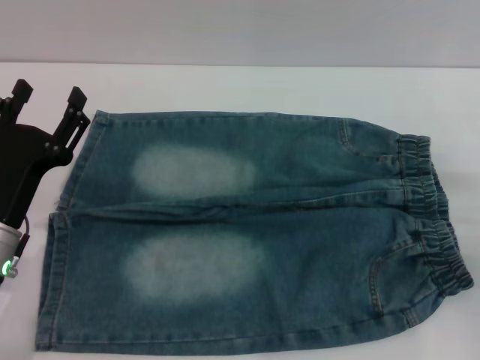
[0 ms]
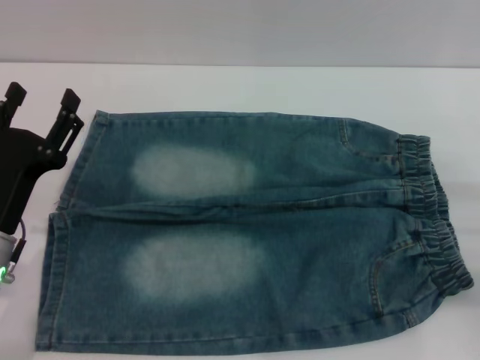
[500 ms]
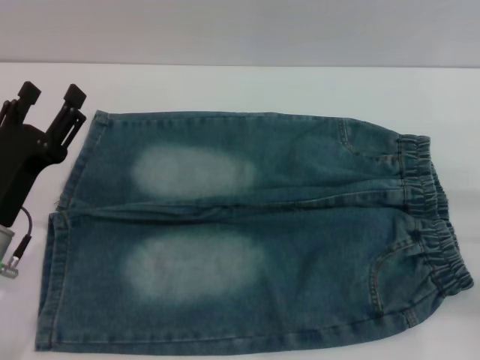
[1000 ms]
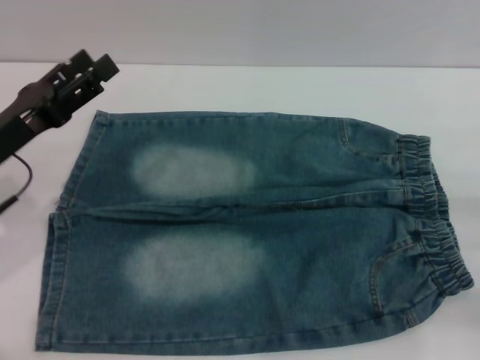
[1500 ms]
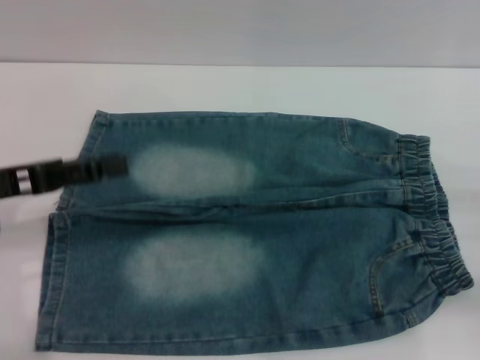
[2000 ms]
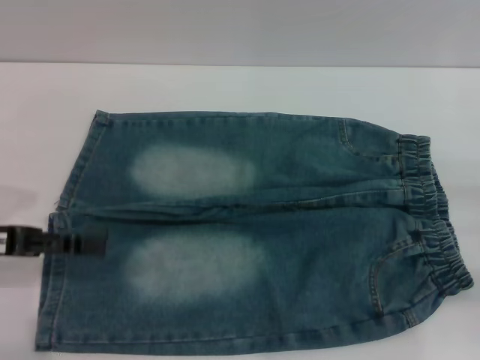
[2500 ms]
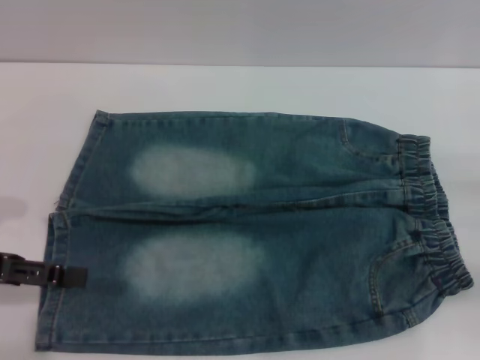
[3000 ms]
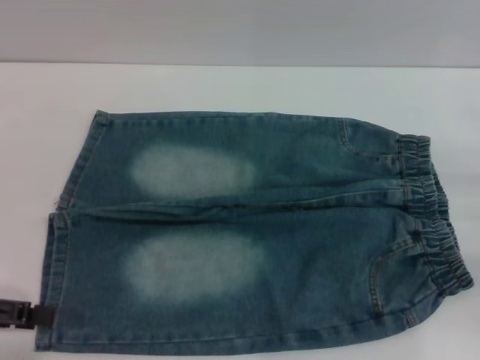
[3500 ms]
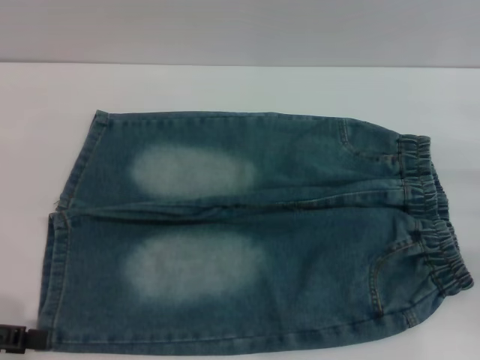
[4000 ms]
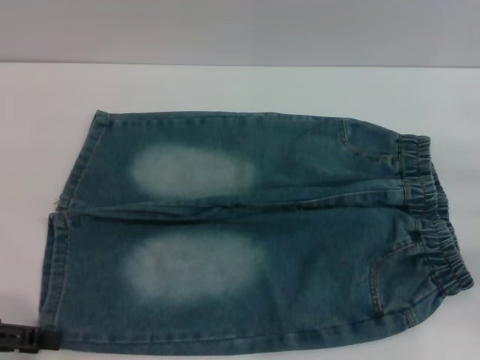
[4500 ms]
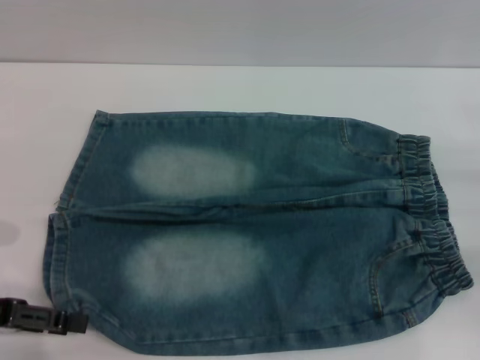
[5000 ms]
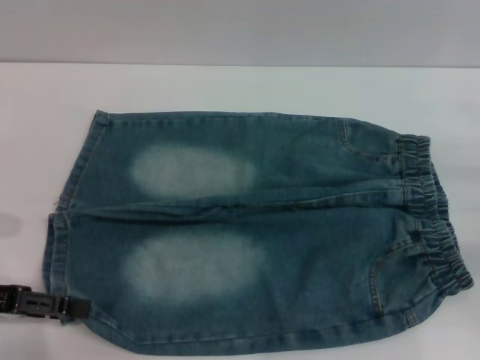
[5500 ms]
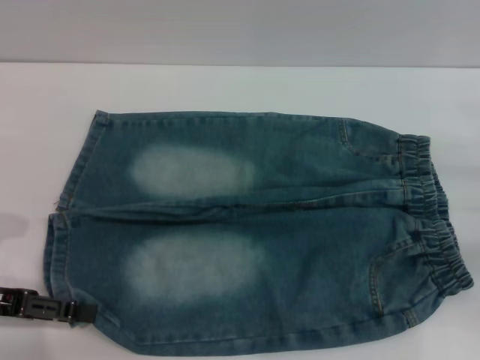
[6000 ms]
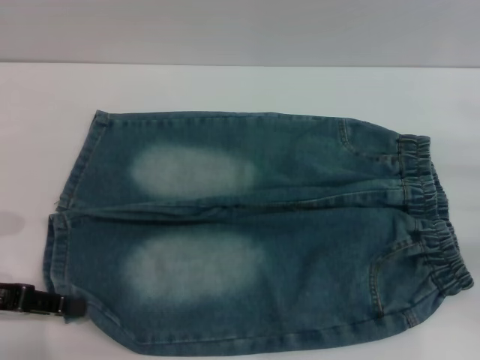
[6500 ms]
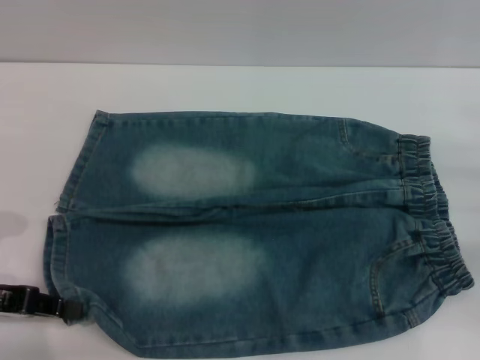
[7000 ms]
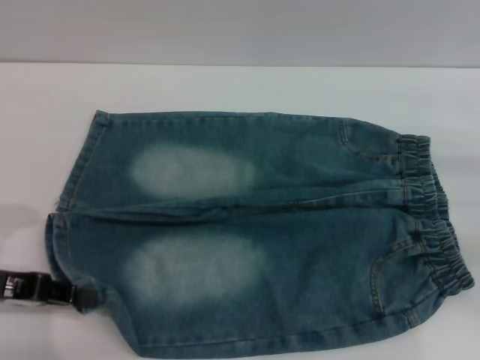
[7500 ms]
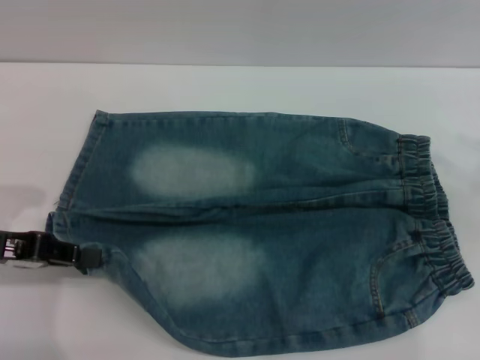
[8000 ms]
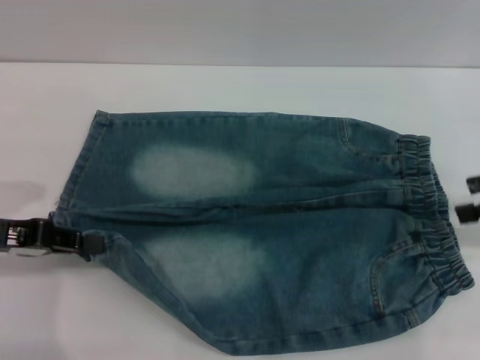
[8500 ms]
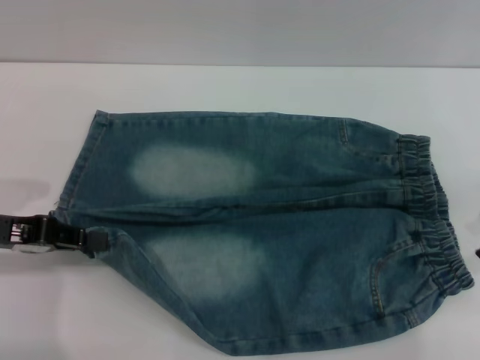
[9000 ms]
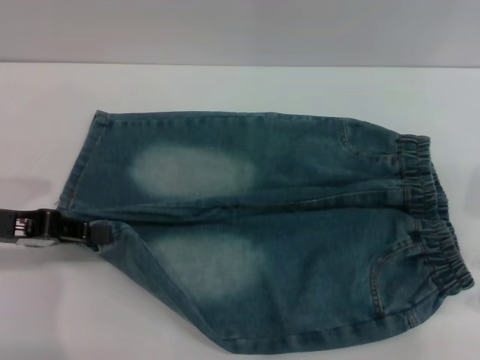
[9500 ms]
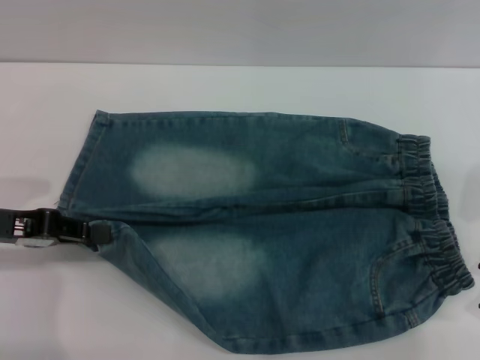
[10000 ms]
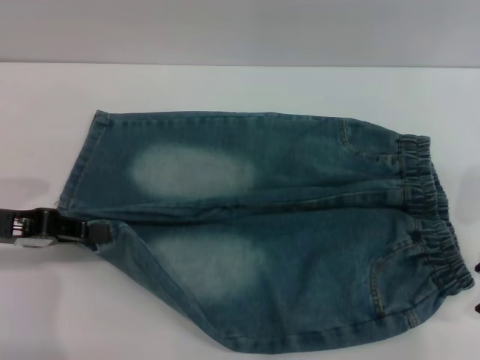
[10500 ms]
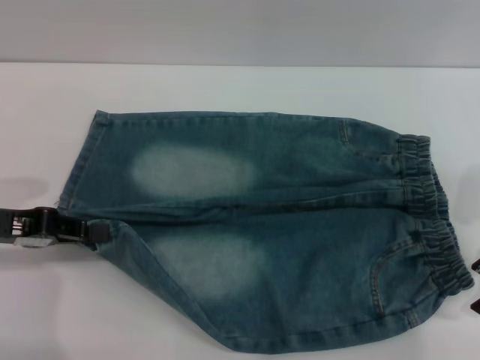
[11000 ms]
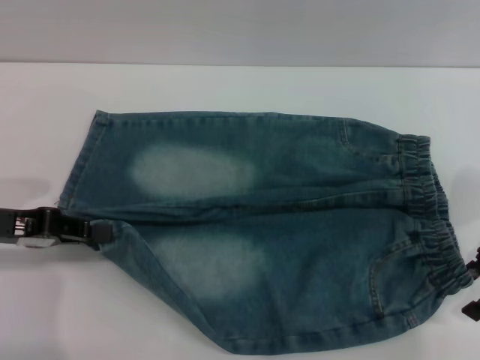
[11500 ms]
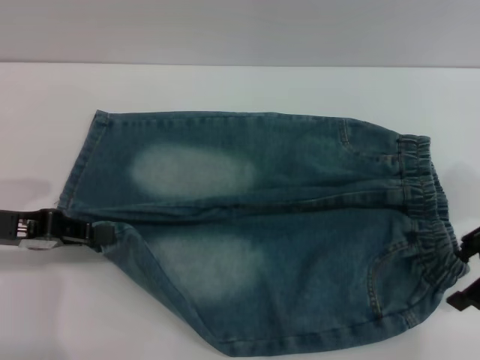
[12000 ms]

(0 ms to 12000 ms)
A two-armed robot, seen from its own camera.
0 ms - 2000 ms: The left gripper is displaced upward and to the left by about 10 cm.
2000 ms - 4000 ms: The left gripper shifts about 10 cm backward and to the left.
4000 ms - 6000 ms: There are only small adjustments of the grippers.
6000 ms - 8000 ms: The right gripper heads upward, covering approximately 10 cm; the left gripper closes its fingers.
8000 ms - 10000 ms: The right gripper shifts some 5 cm to the left.
10000 ms - 12000 ms: The grippers stay close to where they were, moving slightly.

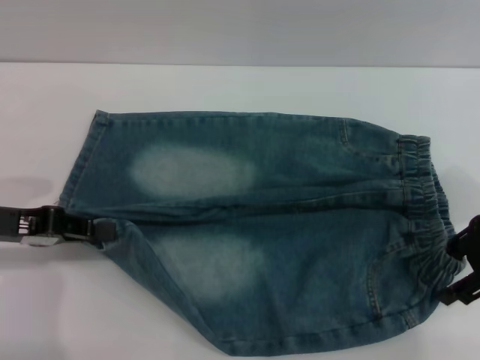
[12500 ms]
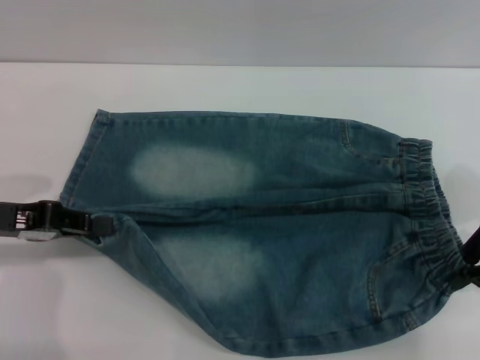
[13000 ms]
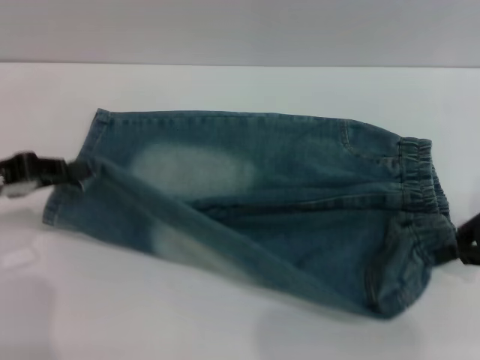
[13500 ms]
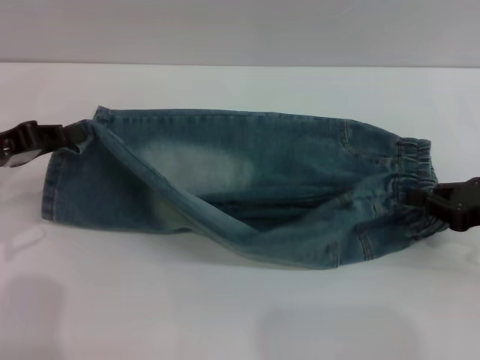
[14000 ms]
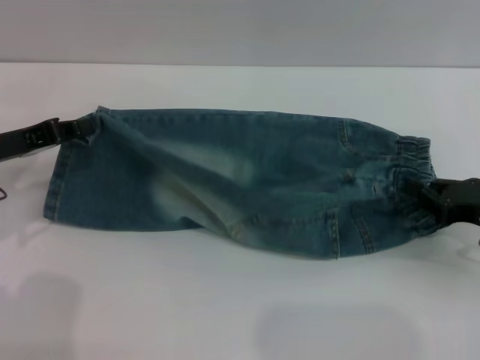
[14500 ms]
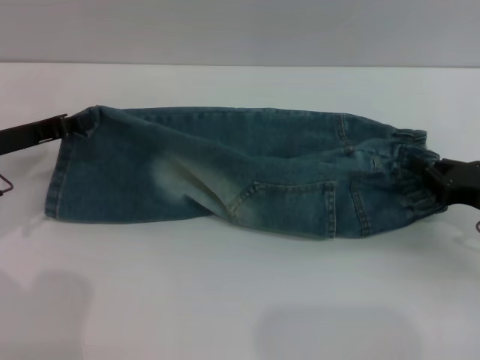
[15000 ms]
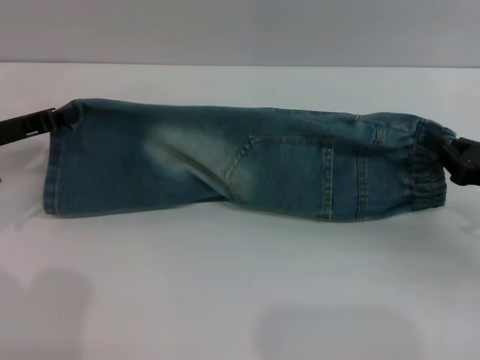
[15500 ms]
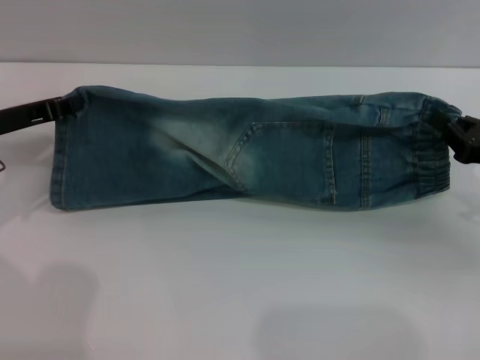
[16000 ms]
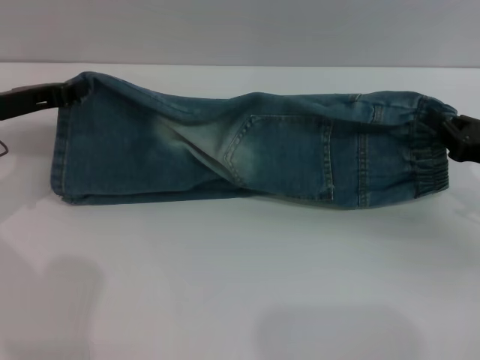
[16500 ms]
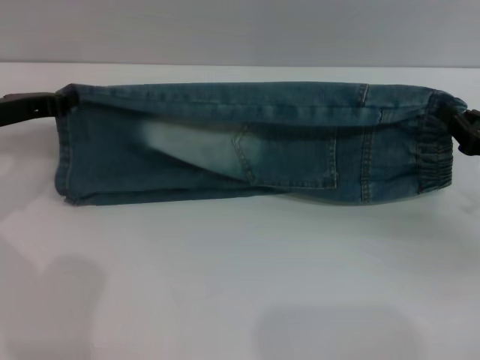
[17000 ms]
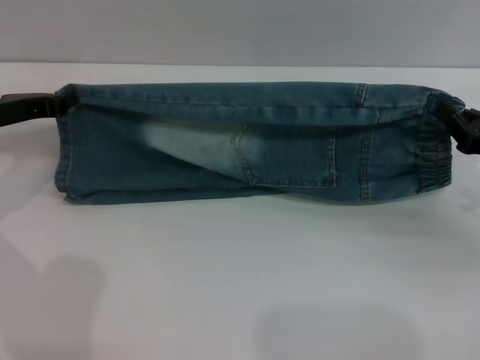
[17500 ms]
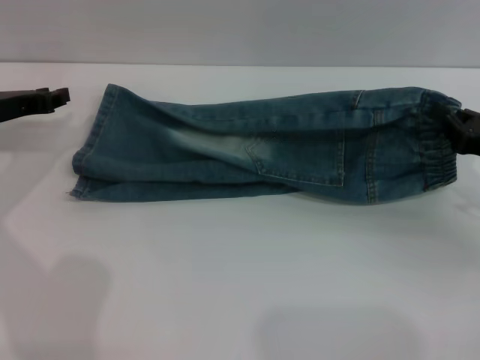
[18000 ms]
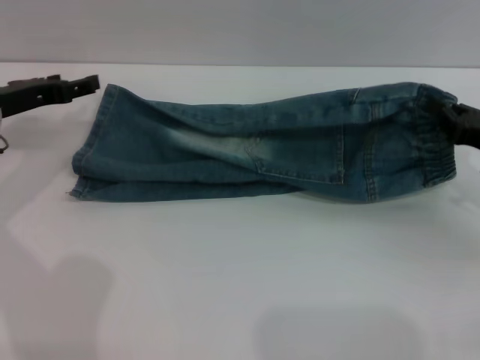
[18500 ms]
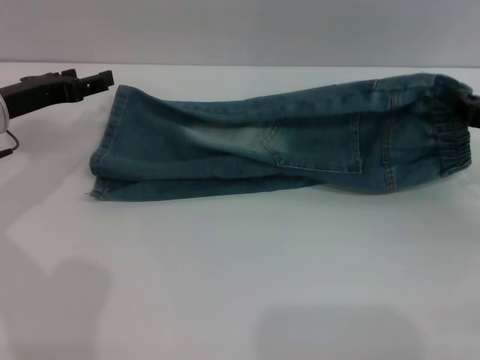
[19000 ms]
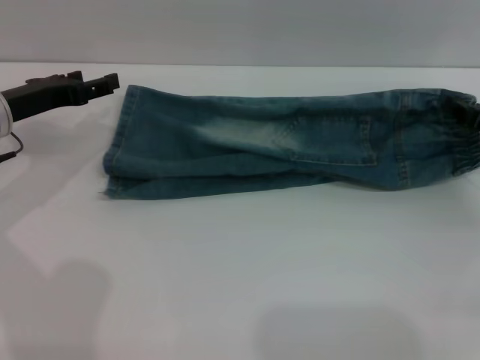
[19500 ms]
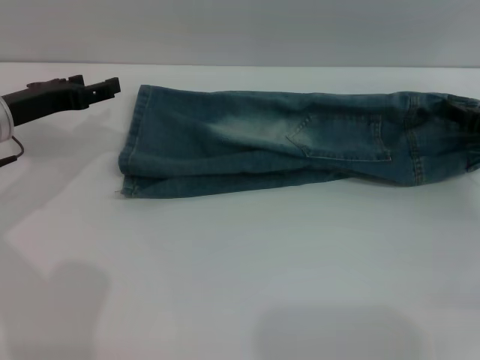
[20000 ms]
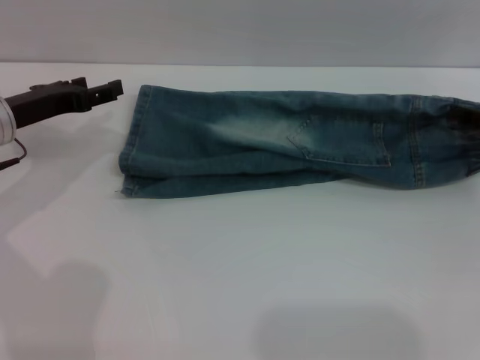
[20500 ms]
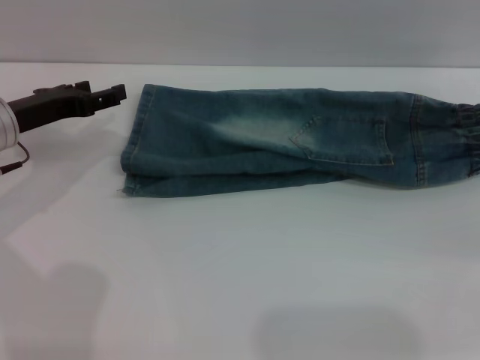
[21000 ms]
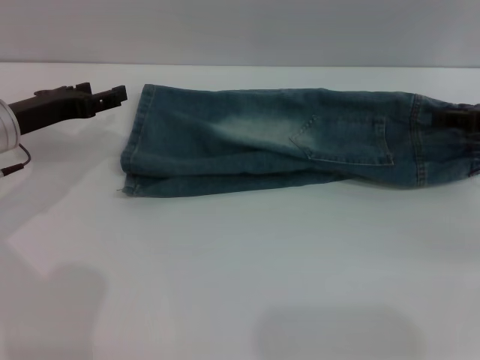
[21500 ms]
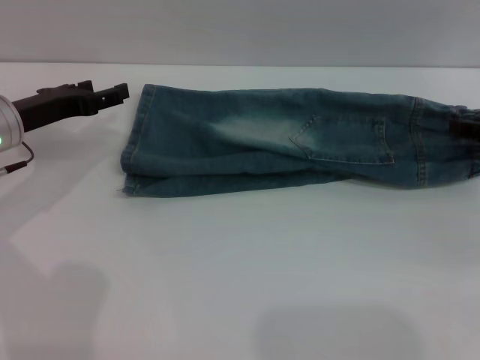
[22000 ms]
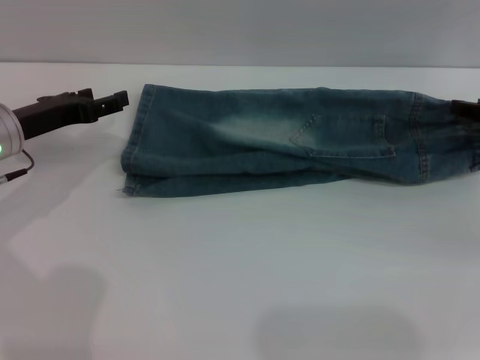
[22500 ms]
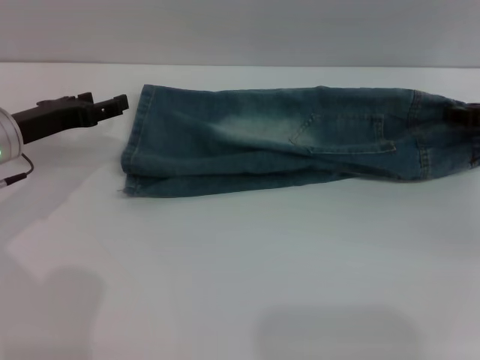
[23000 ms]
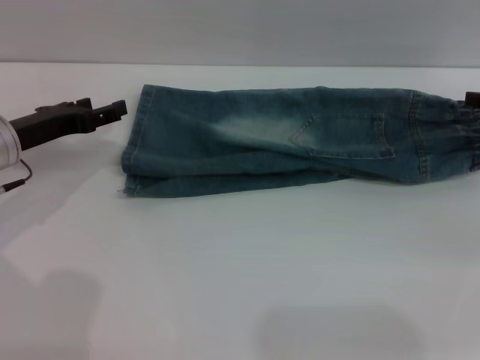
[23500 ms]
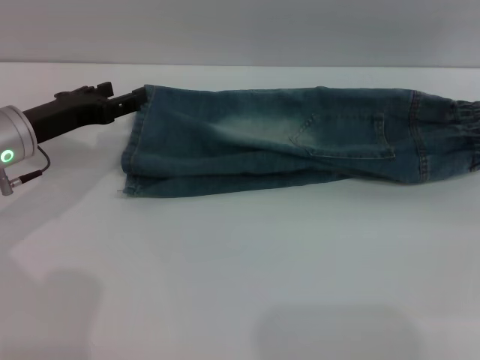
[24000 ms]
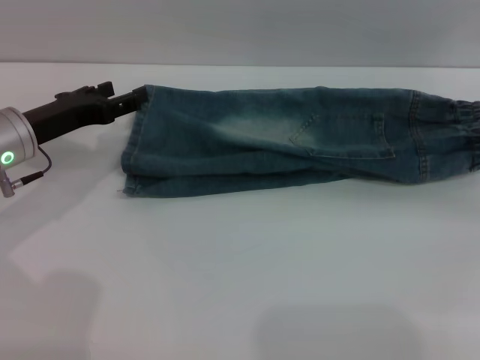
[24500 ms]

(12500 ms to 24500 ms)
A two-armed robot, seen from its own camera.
Step, 12500 ms - 21000 ms: Fold the bottom of the pants upward with both grippers.
12500 ms - 14500 ms: The right gripper shifts some 10 cm downward, and closes; the left gripper ends up some 5 cm from where it was.
16500 ms - 18500 ms: The left gripper opens up.
18500 ms - 20500 ms: The right gripper ends up approximately 5 cm from where it was, and opens its fingers.
20500 ms - 22500 ms: There are only small adjustments of the grippers.

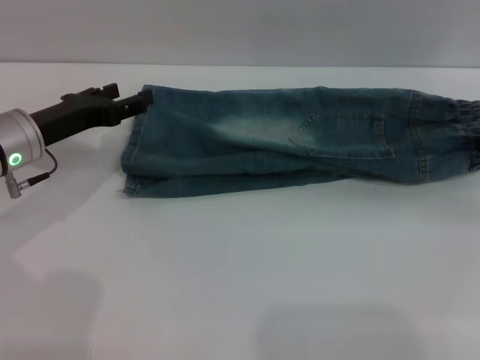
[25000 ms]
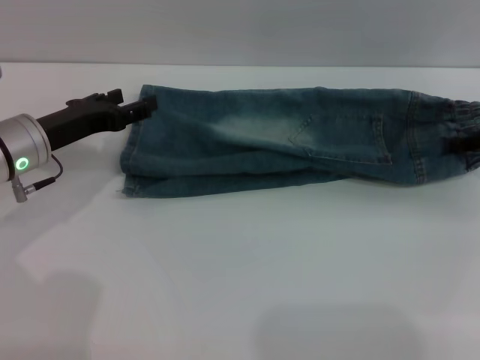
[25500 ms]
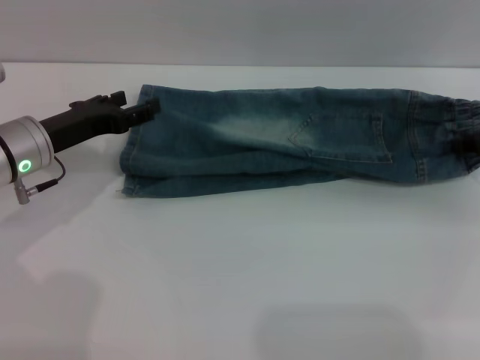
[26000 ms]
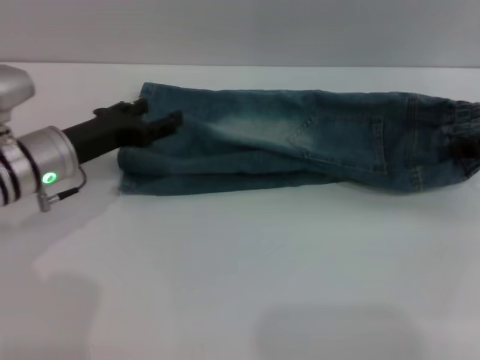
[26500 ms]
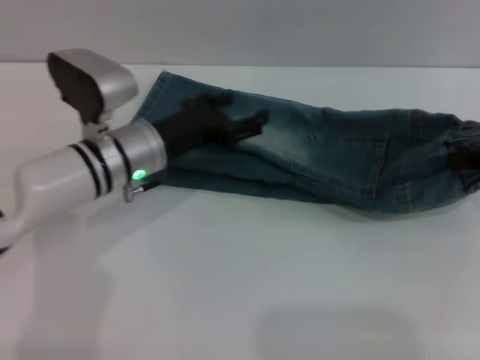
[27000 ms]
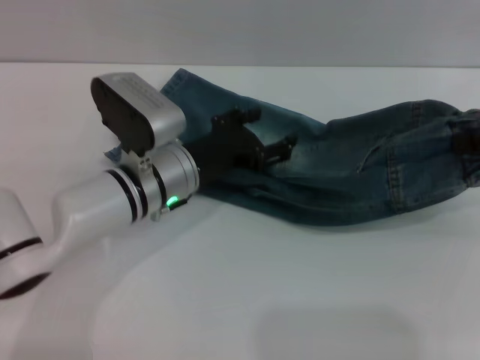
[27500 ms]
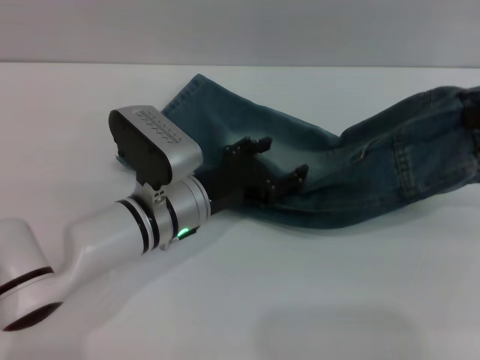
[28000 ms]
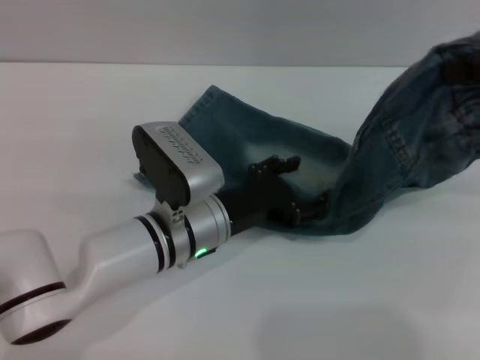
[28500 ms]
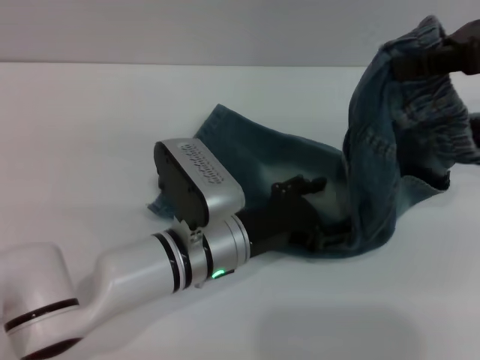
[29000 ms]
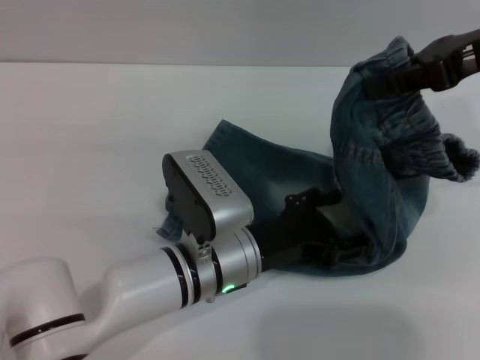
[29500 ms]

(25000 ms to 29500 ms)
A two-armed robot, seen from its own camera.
25000 ms - 27000 ms: The left gripper goes about 10 cm to the right; the right gripper ends up approximately 5 cm from where it was, and closes.
27000 ms - 29500 ms: The left gripper goes some 15 cm backward and to the right. The right gripper heads upward and to the left, covering approximately 10 cm.
